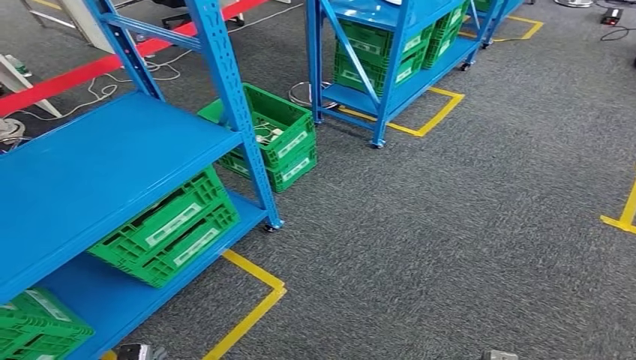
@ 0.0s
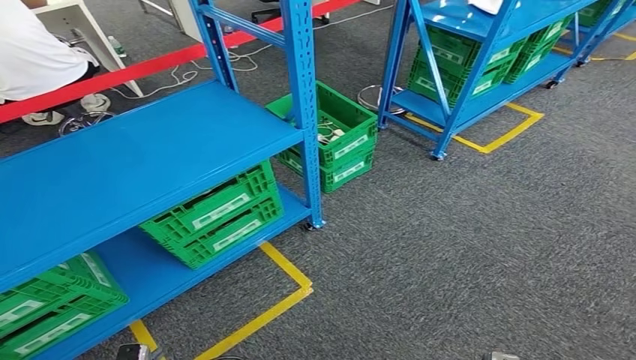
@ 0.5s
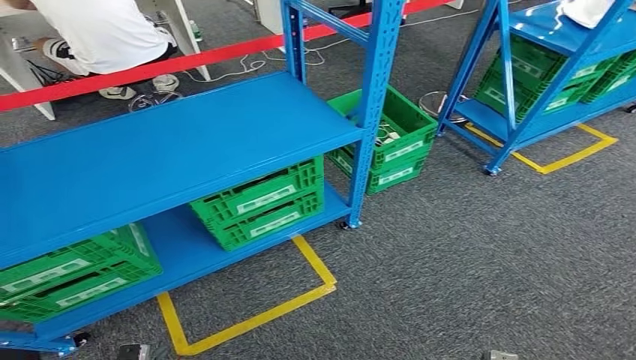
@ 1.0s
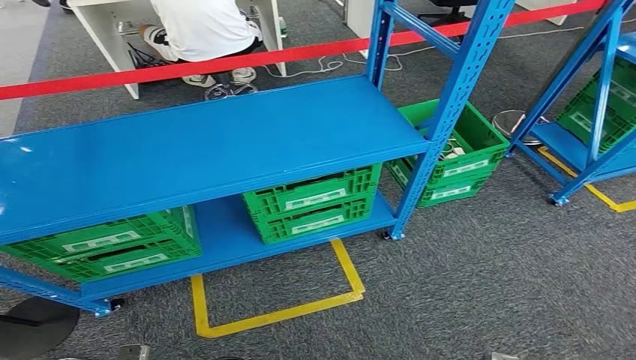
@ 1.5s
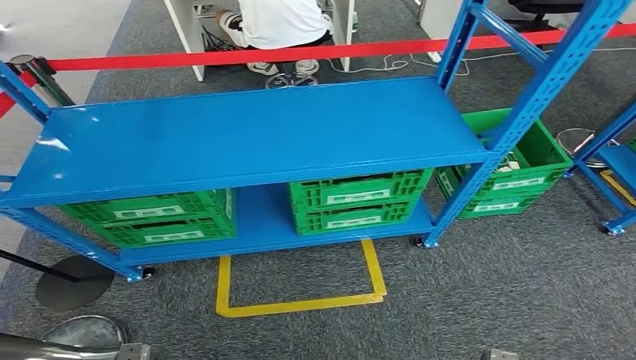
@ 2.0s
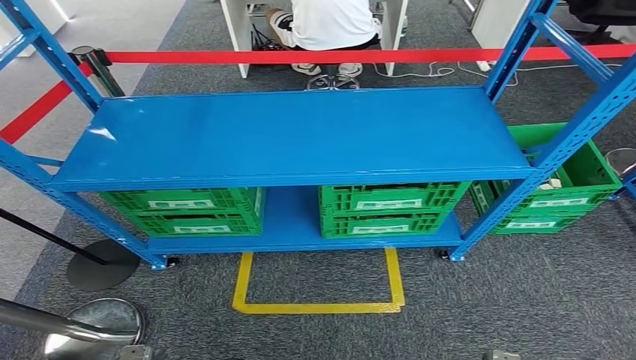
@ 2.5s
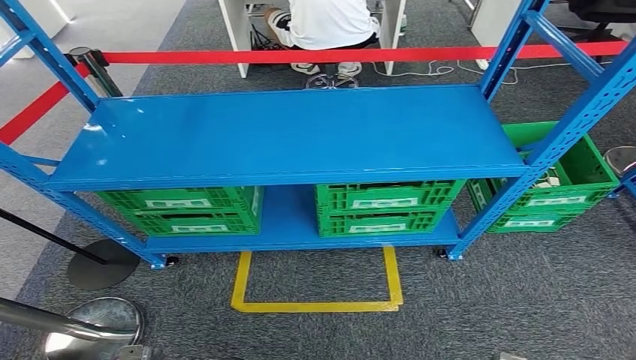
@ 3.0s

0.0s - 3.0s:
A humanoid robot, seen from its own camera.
Step, 0.0s - 3.0s: Return to the initial position at the workbench.
